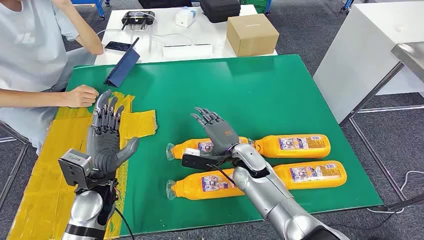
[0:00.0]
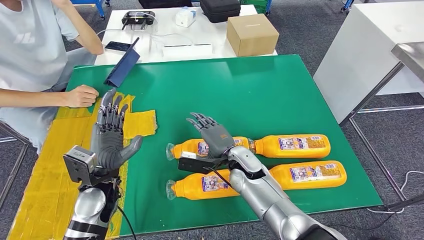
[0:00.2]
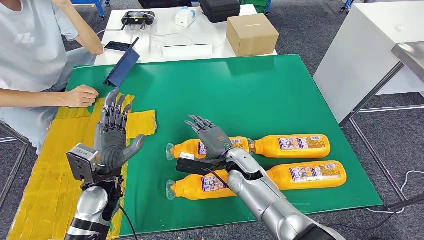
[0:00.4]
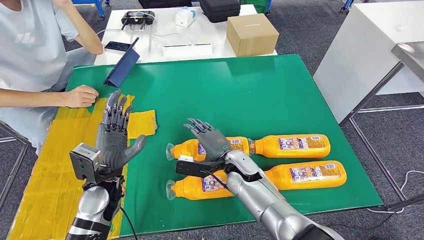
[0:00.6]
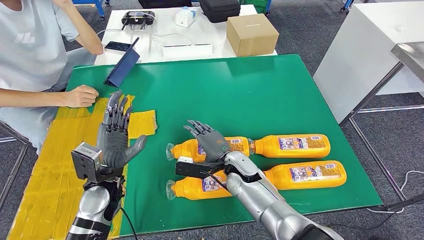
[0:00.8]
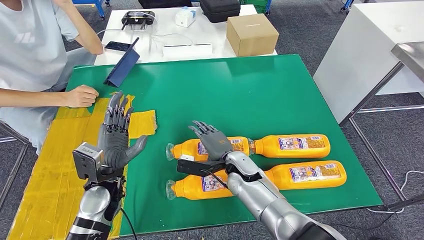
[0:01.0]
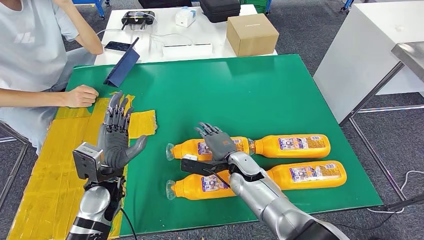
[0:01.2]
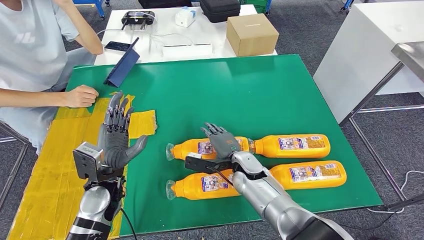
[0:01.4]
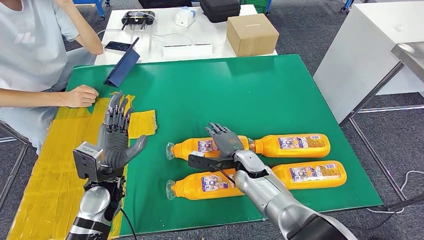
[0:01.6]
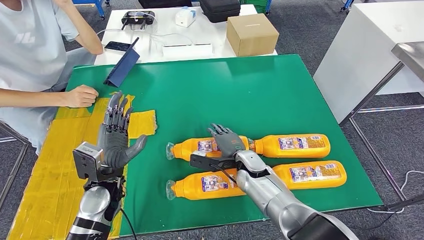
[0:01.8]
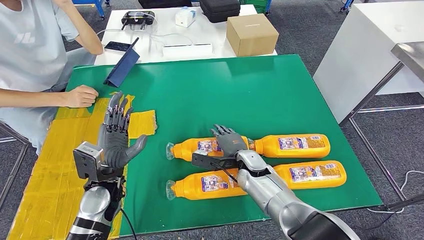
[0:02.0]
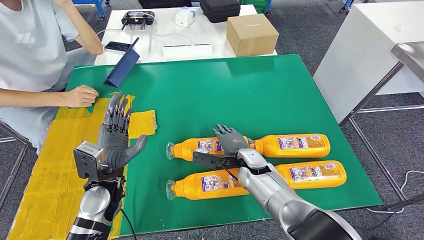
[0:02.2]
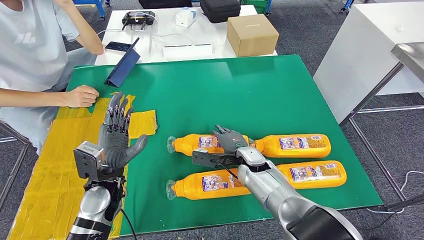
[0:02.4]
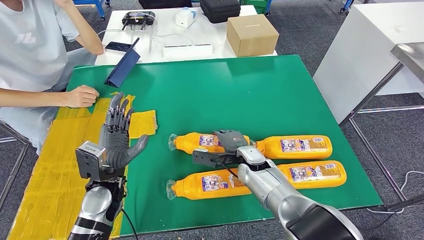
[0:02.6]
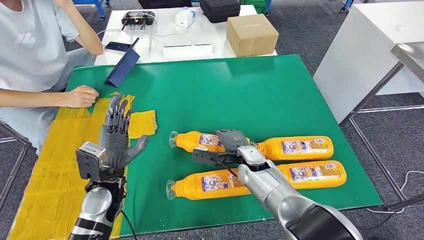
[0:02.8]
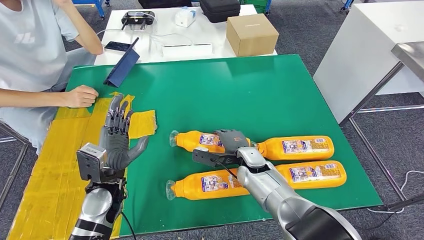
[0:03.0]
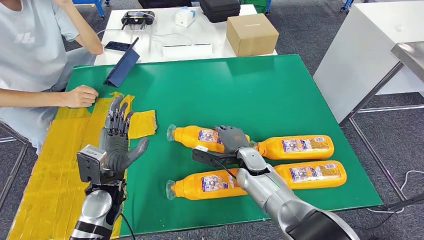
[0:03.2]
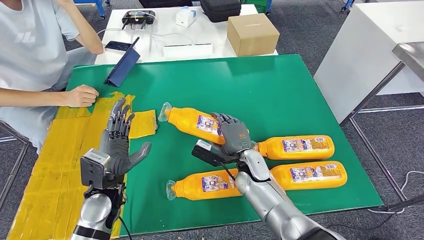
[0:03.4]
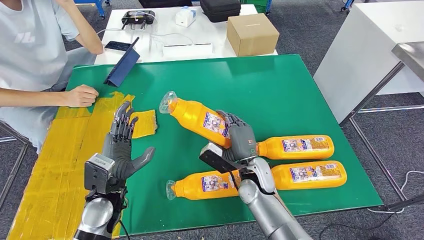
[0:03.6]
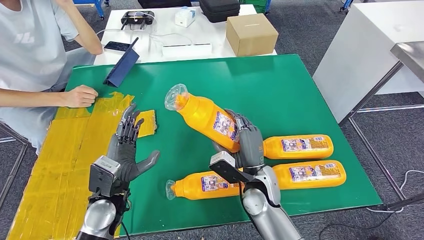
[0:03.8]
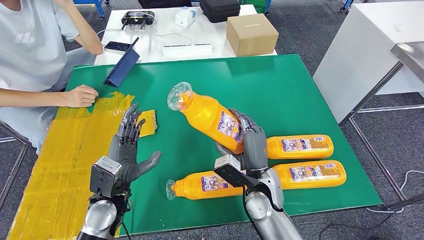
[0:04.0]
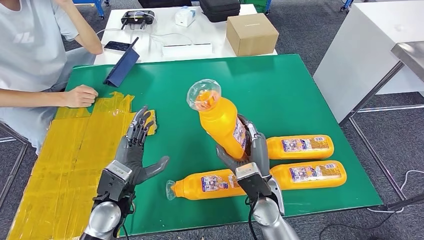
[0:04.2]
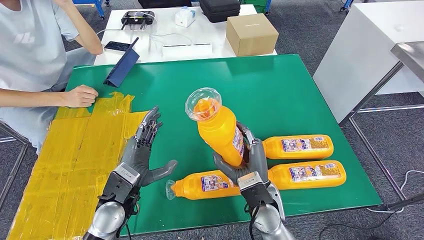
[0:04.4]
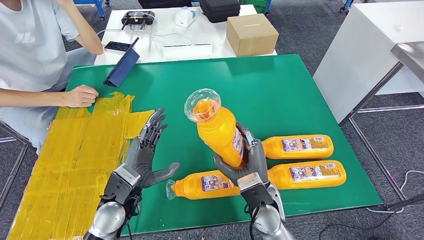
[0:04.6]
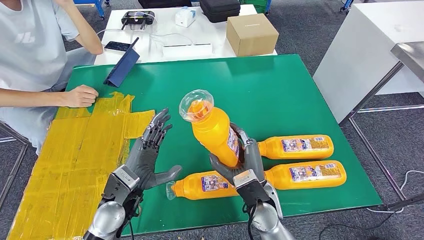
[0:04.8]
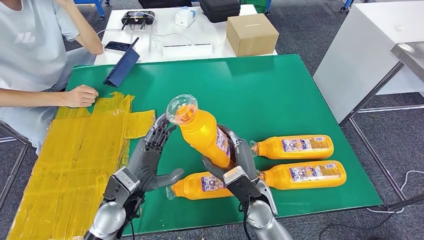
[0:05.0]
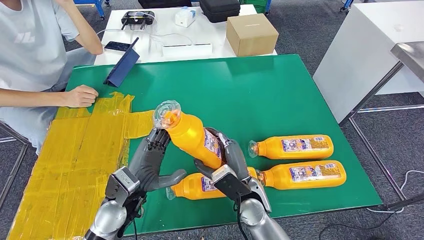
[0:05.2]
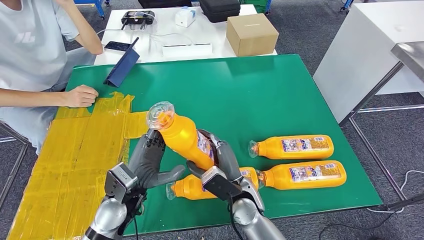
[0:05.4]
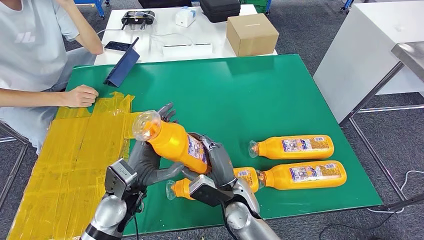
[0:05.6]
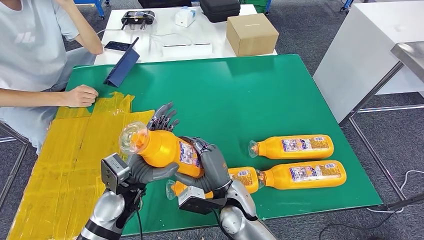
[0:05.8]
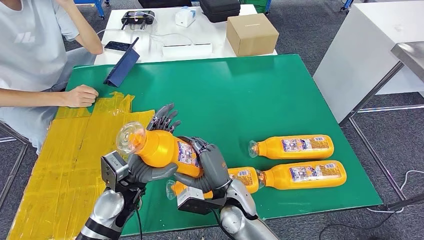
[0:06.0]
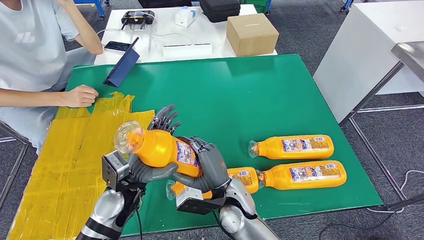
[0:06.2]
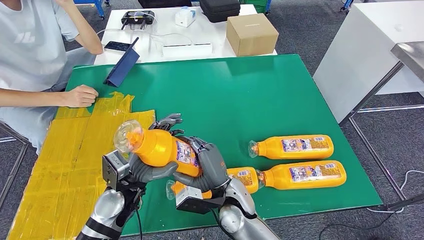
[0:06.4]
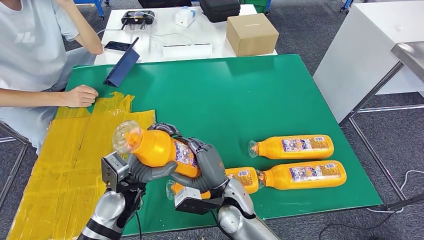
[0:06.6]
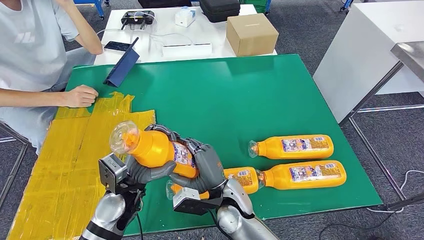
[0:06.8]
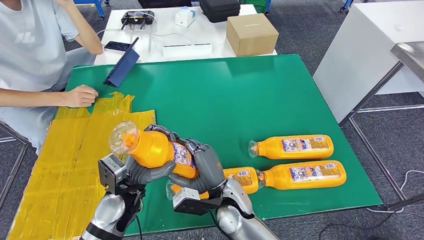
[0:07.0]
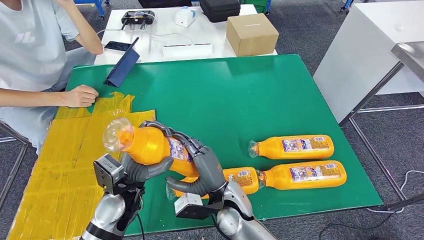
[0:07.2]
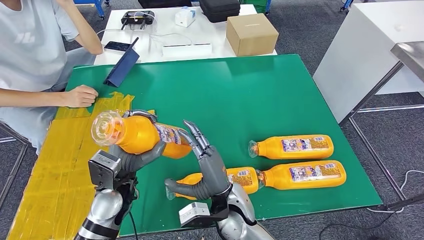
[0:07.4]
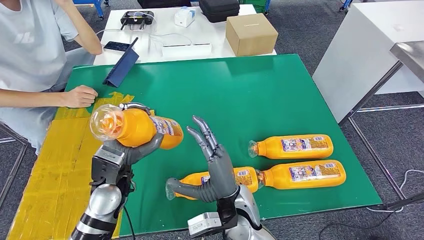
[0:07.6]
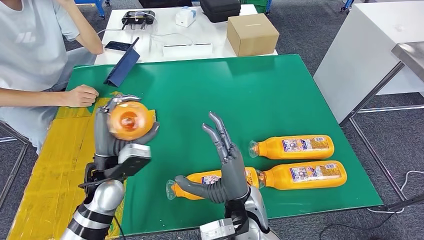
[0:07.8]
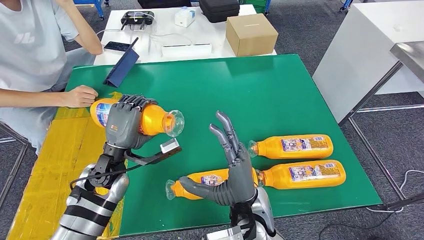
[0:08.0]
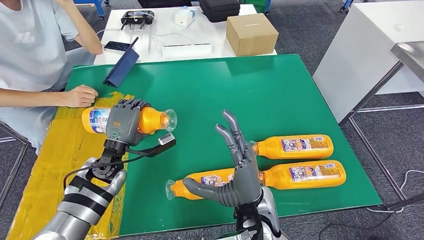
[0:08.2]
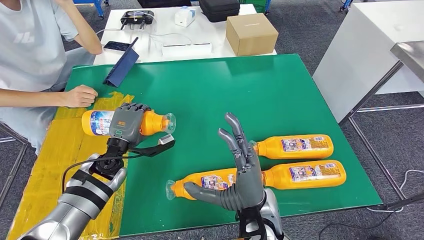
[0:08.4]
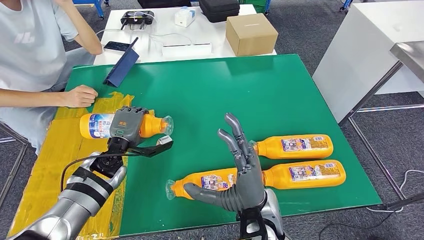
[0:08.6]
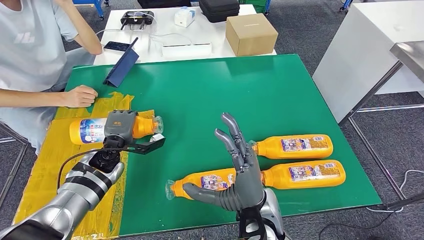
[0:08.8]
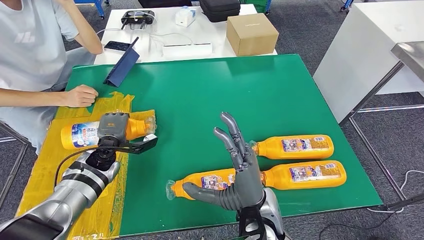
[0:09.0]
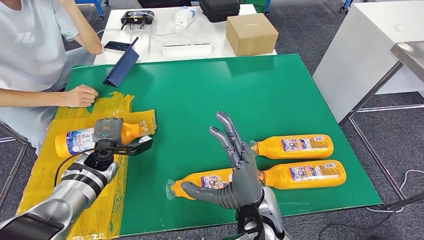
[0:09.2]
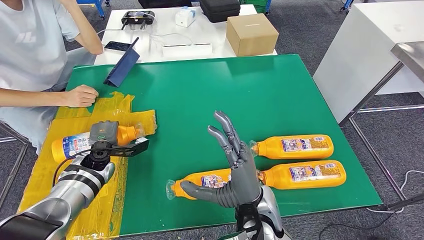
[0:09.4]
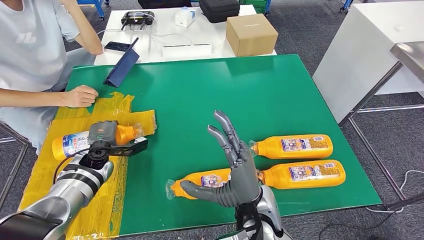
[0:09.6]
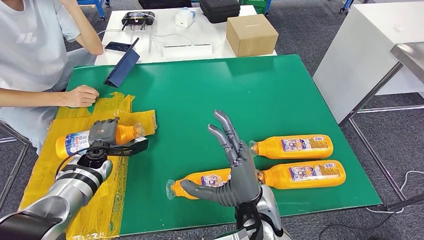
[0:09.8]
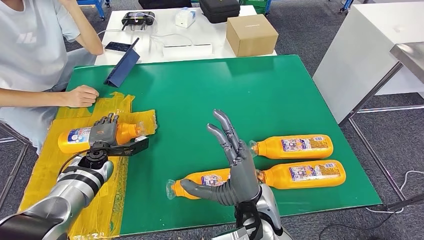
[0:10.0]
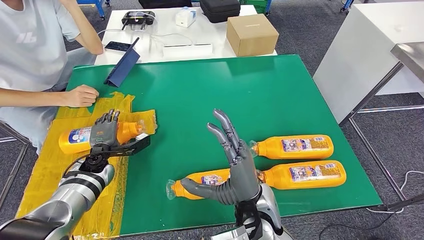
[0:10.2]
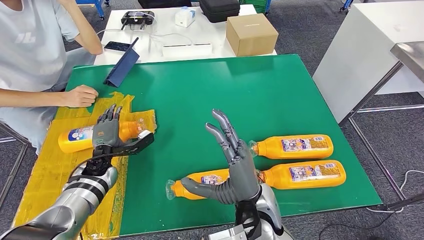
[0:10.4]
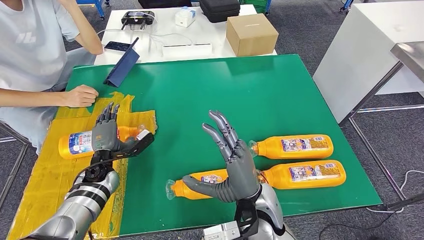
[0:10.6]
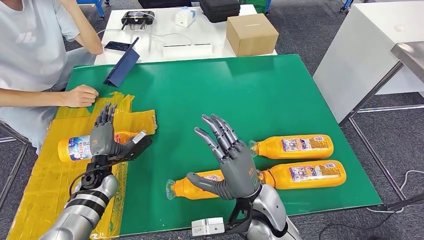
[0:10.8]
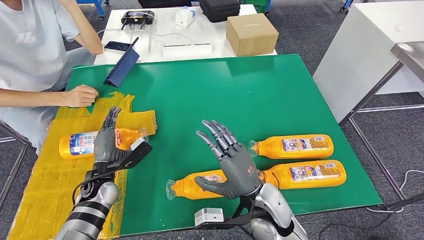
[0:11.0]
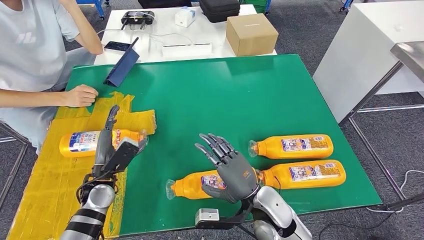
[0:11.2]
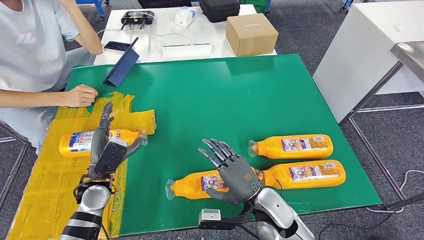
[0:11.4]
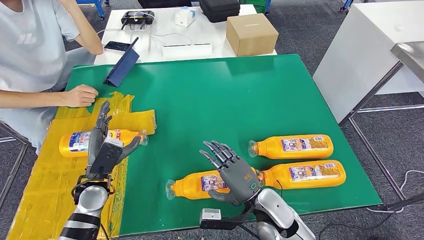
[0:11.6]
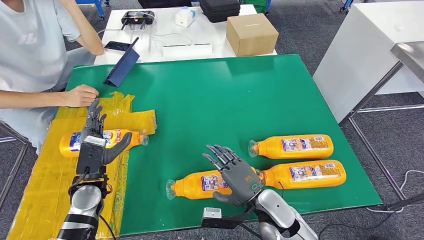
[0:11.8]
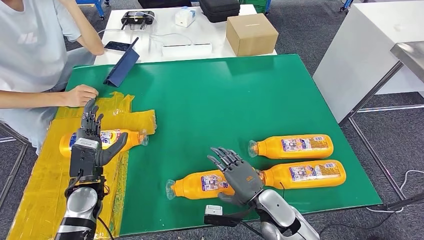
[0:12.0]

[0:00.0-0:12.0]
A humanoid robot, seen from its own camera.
Step, 0:00.0 to 0:03.6: Take the fast-moving consumer goods bottle from the table.
Step, 0:03.8 to 0:10.8: Flip the fast-moving consumer goods bottle to the front side.
0:01.6 to 0:03.0: The hands move only a little.
0:03.0 to 0:04.4: The right hand is displaced backward by some 10 cm.
0:04.4 to 0:06.0: The right hand heads to the left, covering approximately 5 cm.
0:07.6 to 0:09.0: The left hand heads forward, to the left and downward, covering about 15 cm; the right hand shifts by roughly 5 cm.
0:10.4 to 0:12.0: The left hand moves backward, about 10 cm. Meanwhile the right hand goes roughly 10 cm downward and to the right.

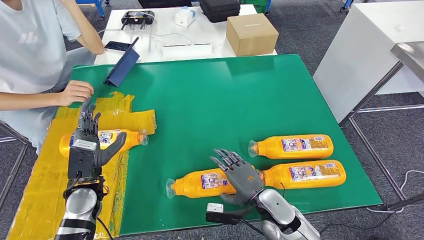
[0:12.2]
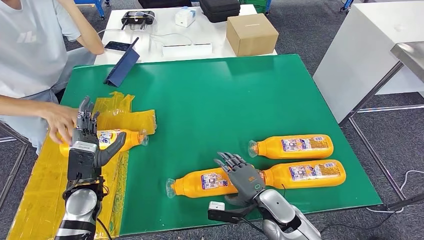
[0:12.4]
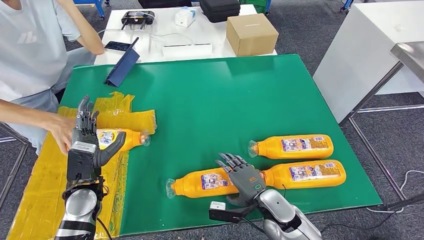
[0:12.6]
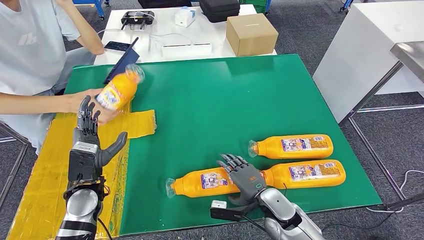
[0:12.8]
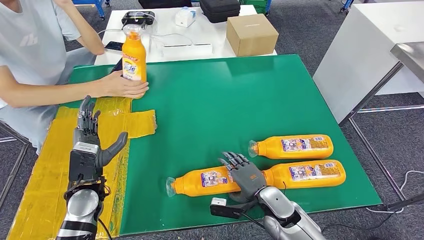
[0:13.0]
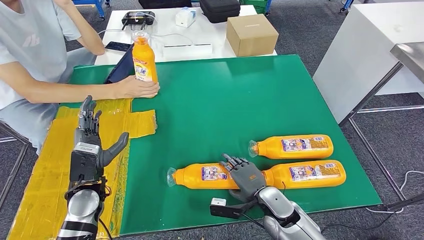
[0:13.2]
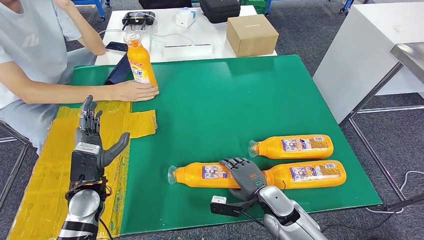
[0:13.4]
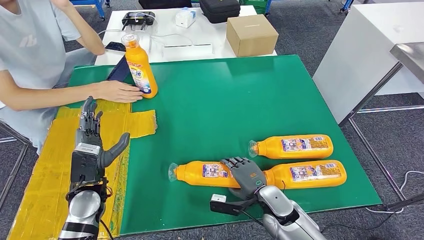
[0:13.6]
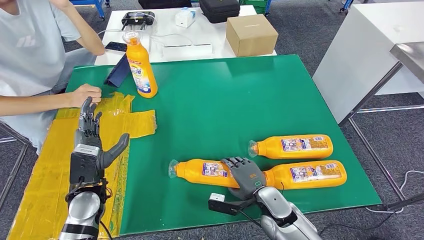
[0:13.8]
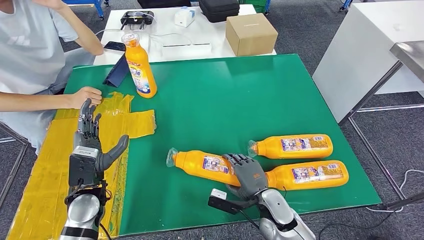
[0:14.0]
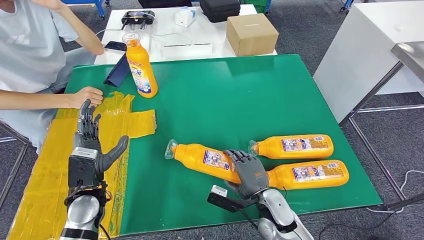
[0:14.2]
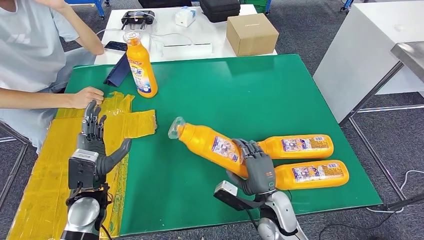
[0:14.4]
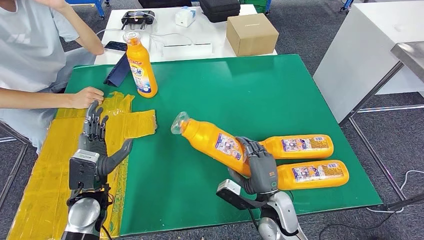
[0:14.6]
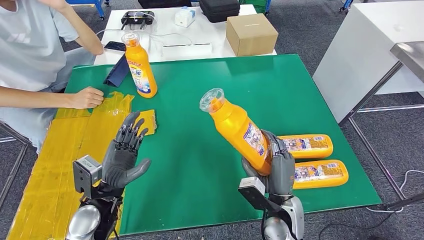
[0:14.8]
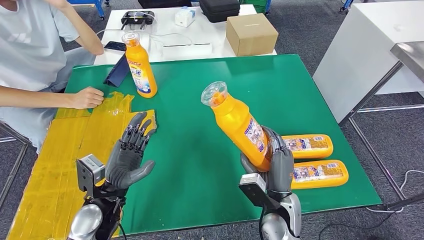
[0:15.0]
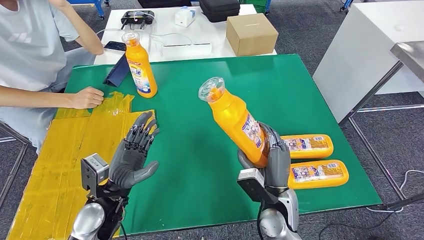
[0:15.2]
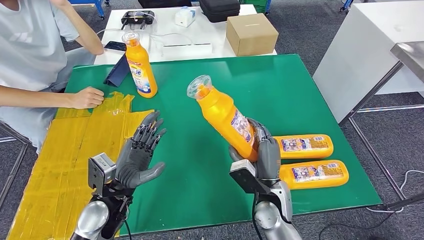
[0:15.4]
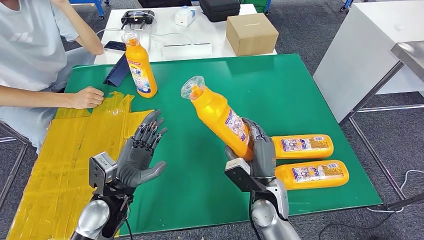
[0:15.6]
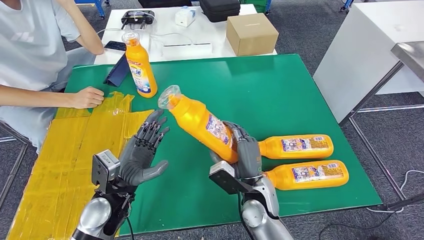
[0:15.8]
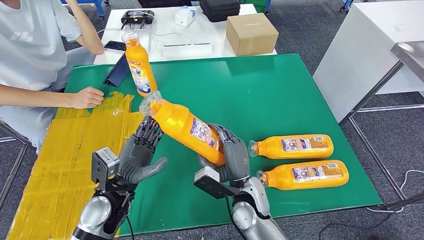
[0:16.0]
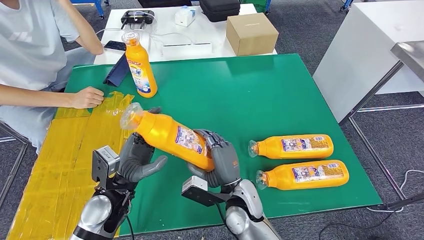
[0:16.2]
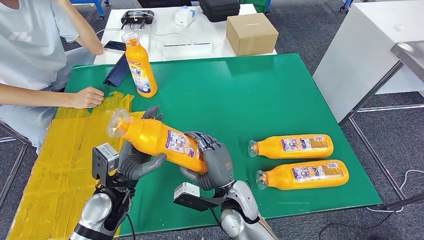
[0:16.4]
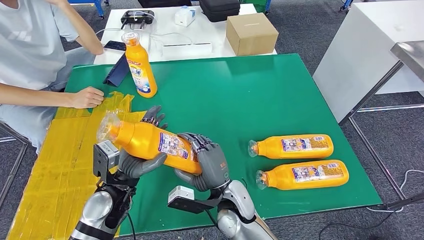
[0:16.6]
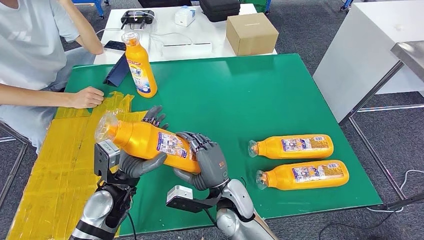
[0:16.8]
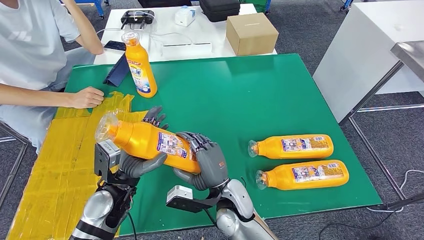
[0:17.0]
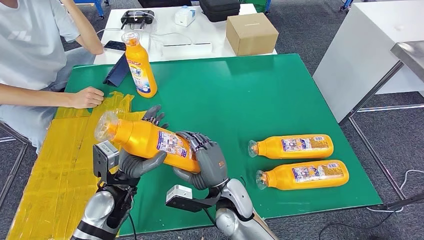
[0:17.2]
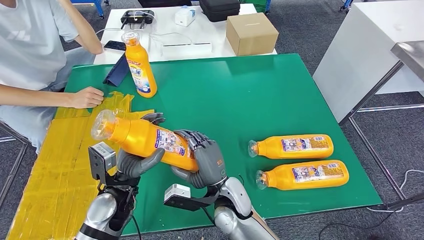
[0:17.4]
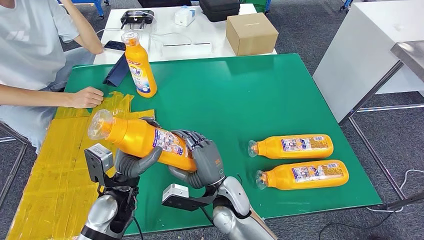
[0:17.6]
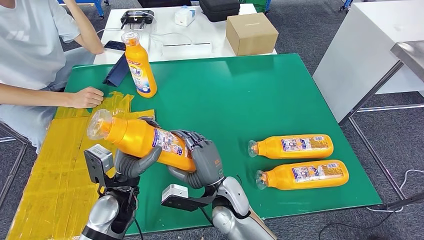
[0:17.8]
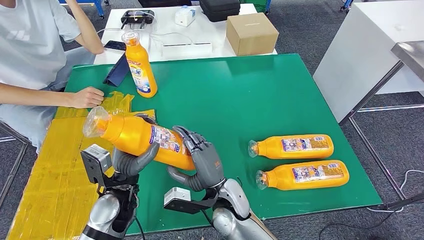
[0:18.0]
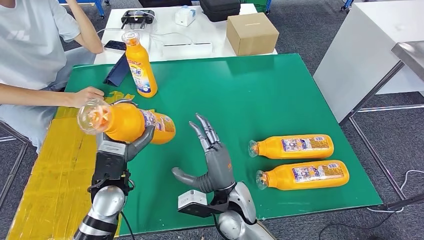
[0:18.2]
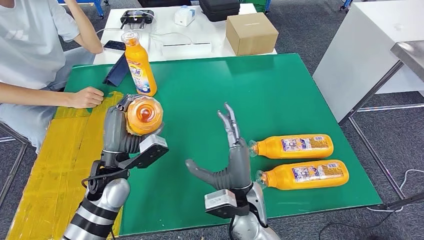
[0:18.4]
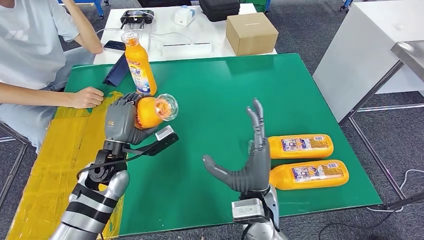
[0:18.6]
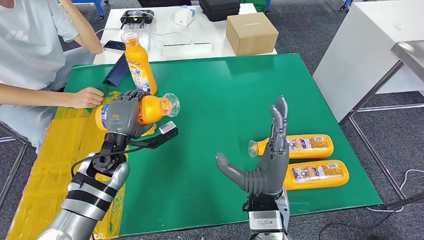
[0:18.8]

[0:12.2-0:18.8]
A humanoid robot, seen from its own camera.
Step, 0:13.2 to 0:16.6: Pick up the fast-moving consumer goods bottle from the table.
0:12.2 to 0:13.8: The hands stay close to where they were, moving slightly.
0:15.4 to 0:17.2: The right hand travels to the left by some 10 cm.
0:17.2 to 0:18.8: The left hand moves forward, approximately 10 cm. The right hand is displaced upward and to the right by roughly 10 cm.
